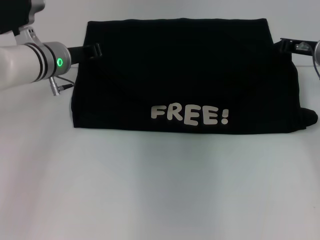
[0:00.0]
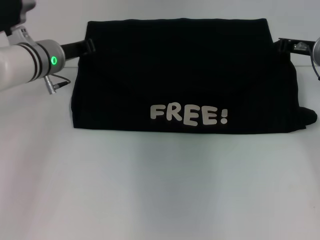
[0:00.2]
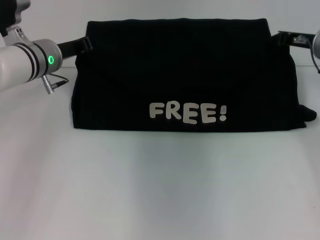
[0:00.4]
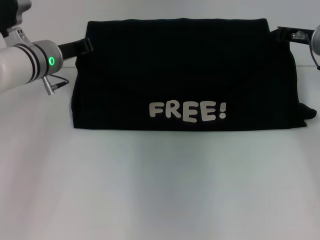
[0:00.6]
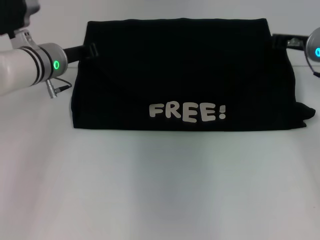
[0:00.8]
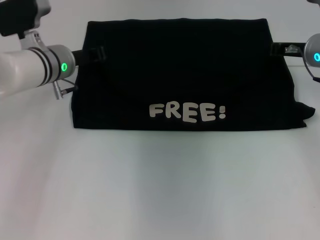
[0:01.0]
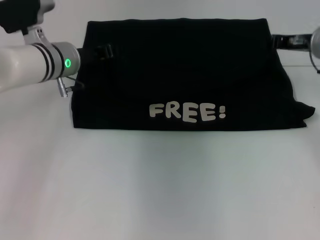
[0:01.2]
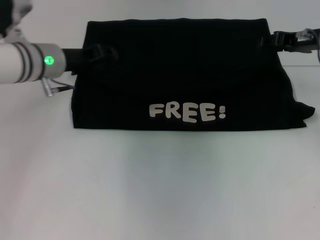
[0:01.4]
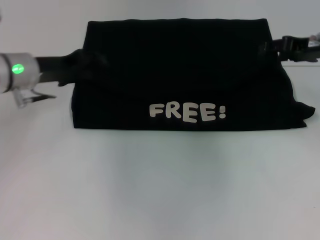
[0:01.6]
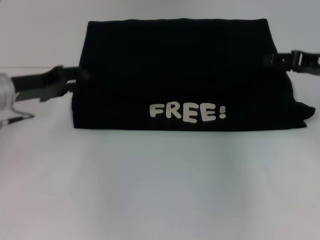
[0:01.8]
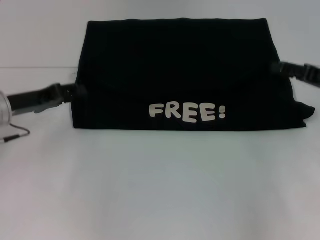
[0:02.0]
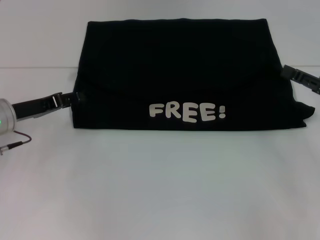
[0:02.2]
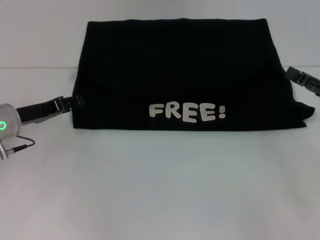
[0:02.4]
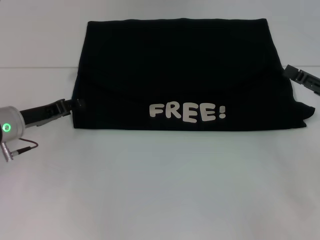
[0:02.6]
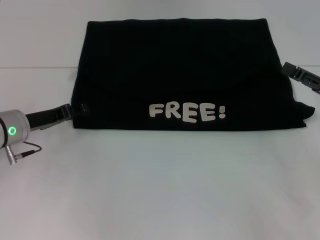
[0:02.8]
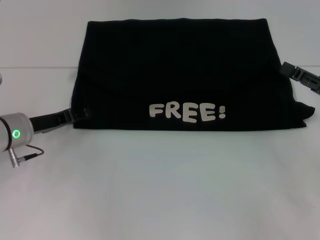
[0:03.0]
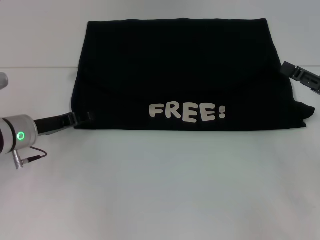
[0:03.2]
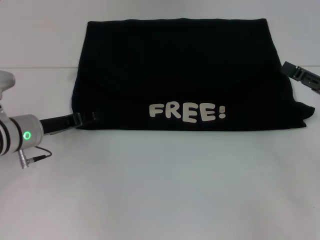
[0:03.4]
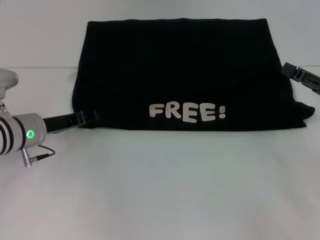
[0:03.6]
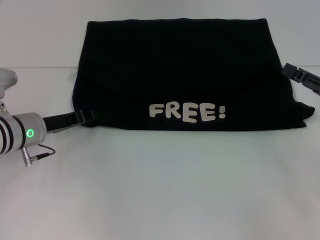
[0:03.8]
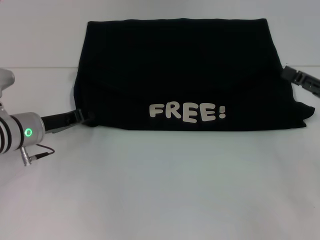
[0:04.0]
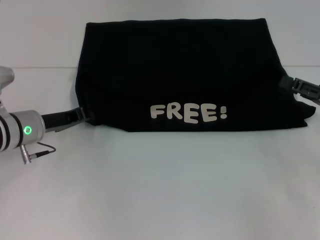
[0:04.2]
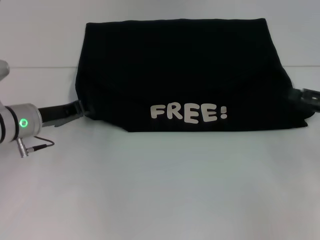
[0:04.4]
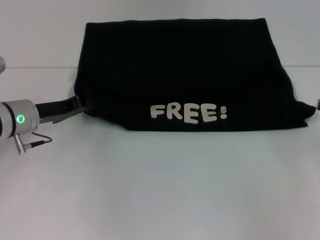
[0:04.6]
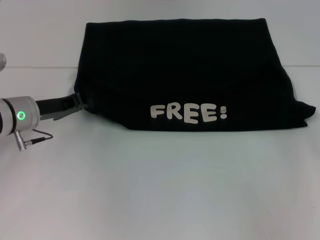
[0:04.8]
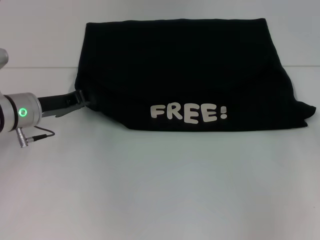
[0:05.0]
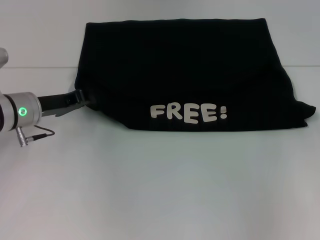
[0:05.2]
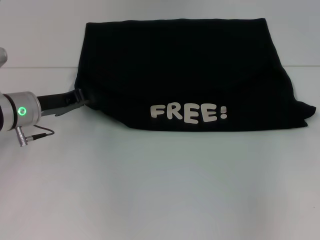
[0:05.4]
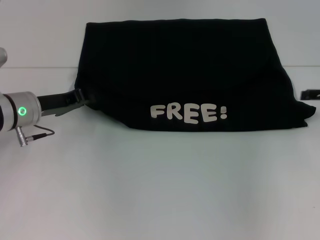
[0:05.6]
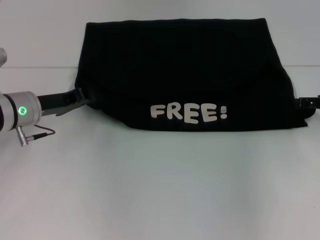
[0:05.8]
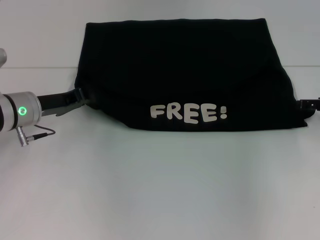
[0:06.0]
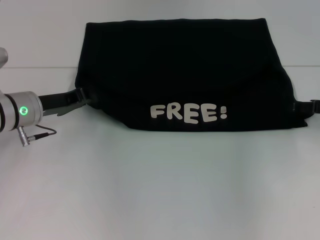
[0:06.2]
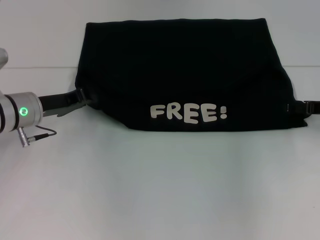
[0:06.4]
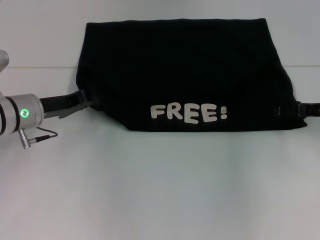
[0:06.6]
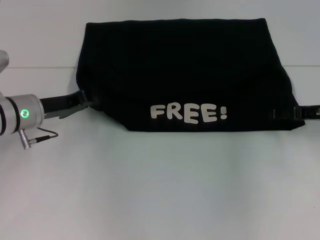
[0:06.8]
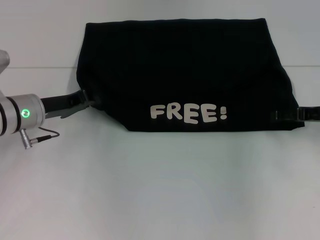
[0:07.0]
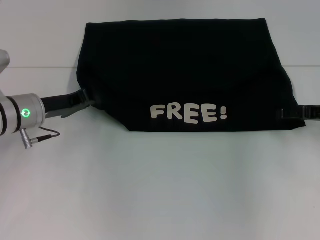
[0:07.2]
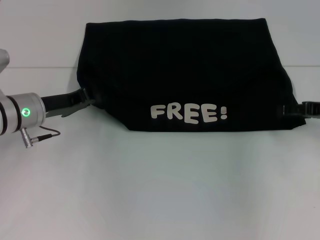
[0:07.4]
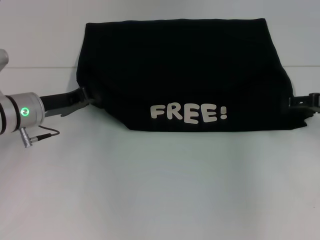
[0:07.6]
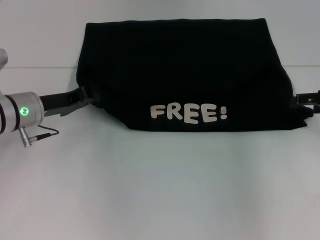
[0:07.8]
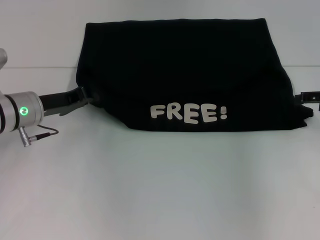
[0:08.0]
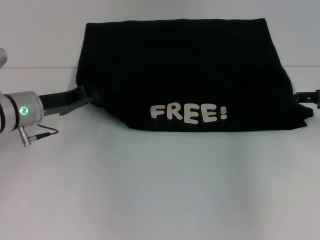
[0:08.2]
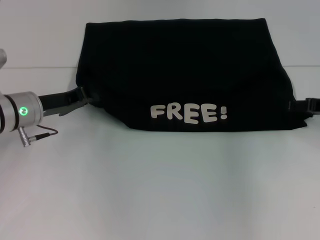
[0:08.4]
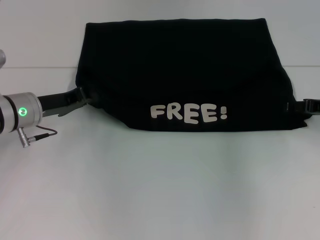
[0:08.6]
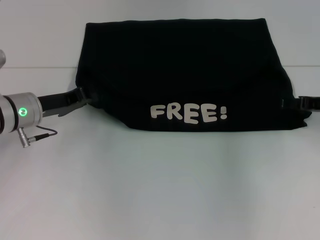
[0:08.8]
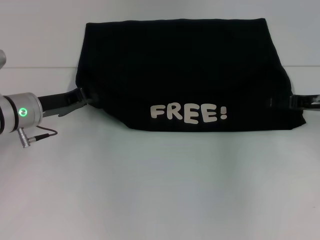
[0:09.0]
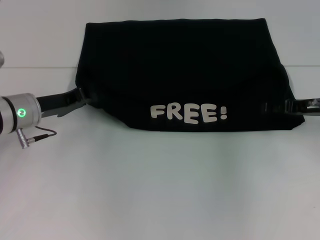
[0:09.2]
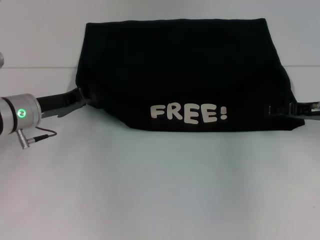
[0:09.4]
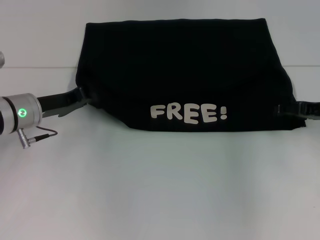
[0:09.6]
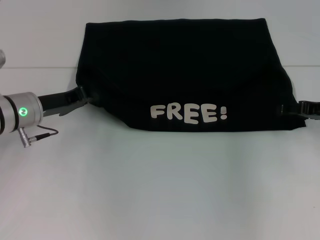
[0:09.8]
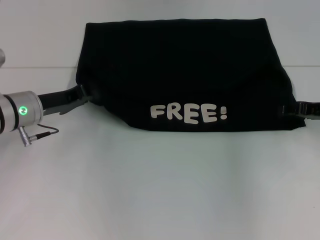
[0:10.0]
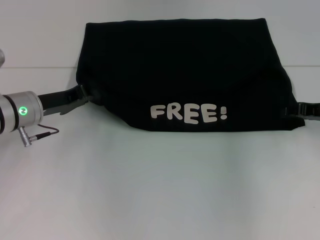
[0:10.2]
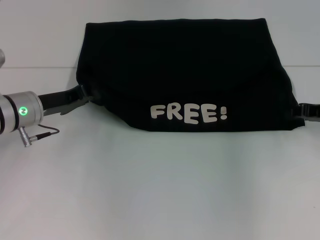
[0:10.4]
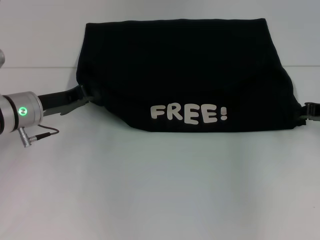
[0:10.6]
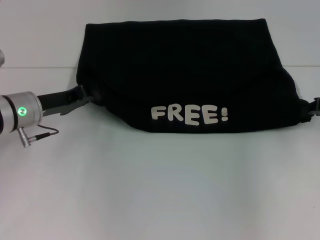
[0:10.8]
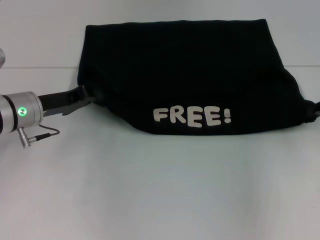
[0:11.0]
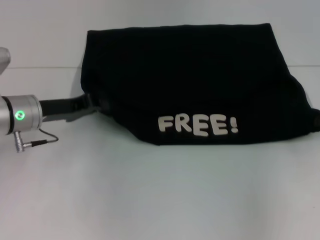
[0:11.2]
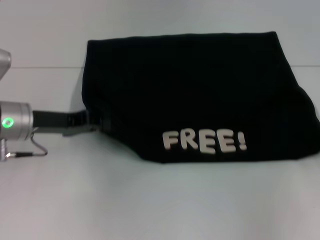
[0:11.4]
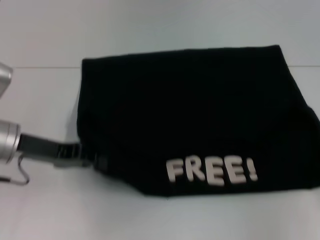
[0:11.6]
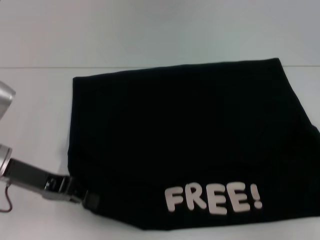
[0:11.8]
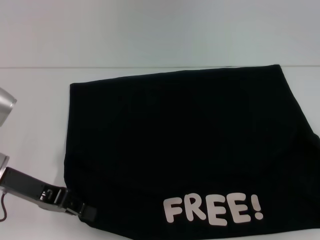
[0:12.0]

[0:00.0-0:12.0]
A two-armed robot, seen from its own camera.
Step, 1.4 to 12.0 s: Pull the clothes with your left hand.
Step, 1.4 to 12.0 s: Pull the clothes with your right hand.
0.0 to 1.6 s: The right gripper changes place by approximately 5 cm, and opens. Meanwhile the left gripper shifts some 5 cm to the left, and opens up.
1.6 to 3.0 s: The left gripper shifts roughly 10 cm downward. The right gripper travels backward and downward by approximately 15 cm.
3.0 to 4.4 s: The left gripper closes its fingers.
4.4 to 6.0 s: The right gripper shifts about 5 cm forward.
6.0 to 9.0 s: The grippers make only small movements.
9.0 to 10.4 s: The right gripper closes up.
10.4 to 12.0 s: The left gripper goes roughly 10 cm backward. The right gripper travels backward and to the right by approximately 15 cm, and closes its fingers.

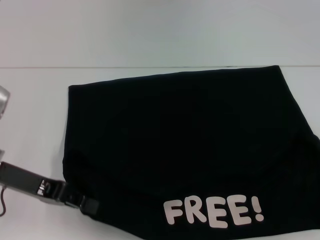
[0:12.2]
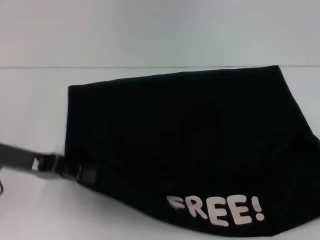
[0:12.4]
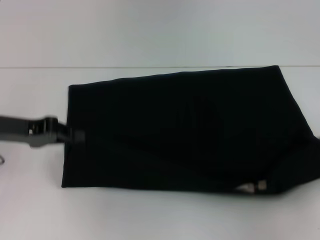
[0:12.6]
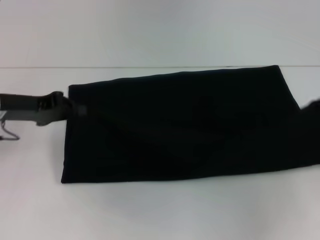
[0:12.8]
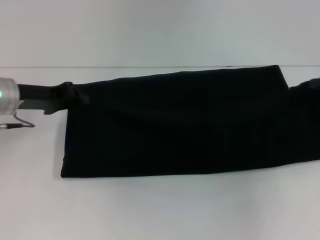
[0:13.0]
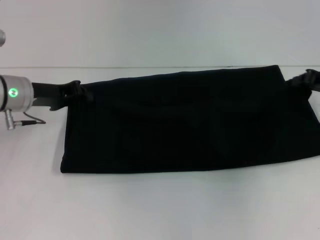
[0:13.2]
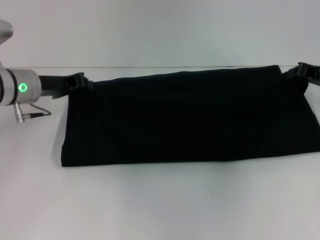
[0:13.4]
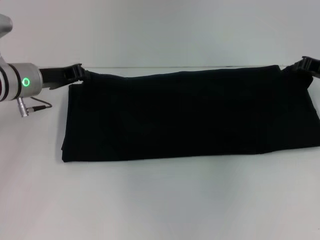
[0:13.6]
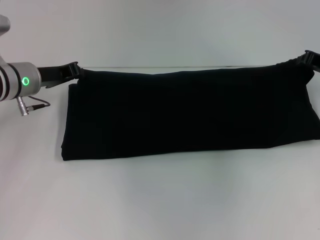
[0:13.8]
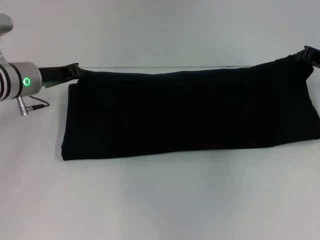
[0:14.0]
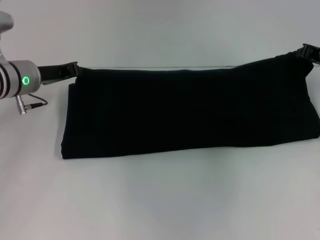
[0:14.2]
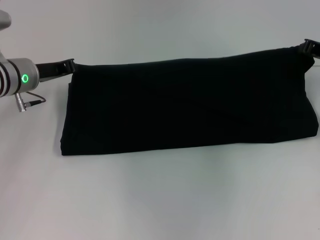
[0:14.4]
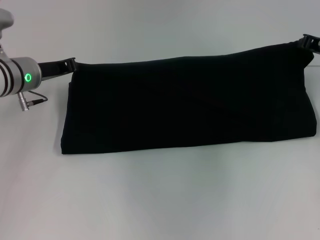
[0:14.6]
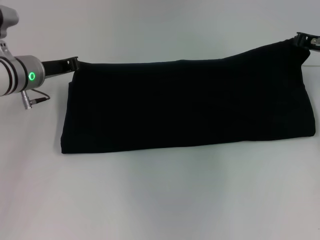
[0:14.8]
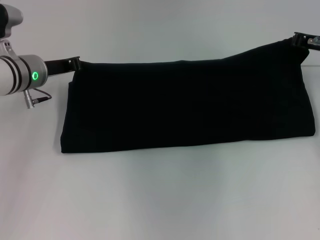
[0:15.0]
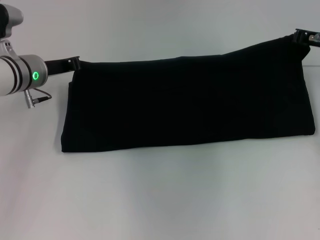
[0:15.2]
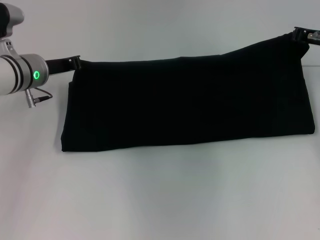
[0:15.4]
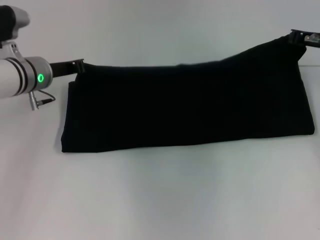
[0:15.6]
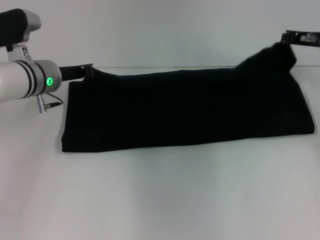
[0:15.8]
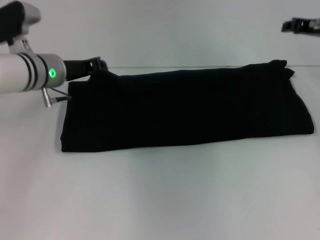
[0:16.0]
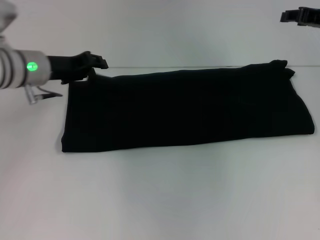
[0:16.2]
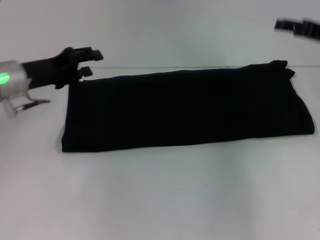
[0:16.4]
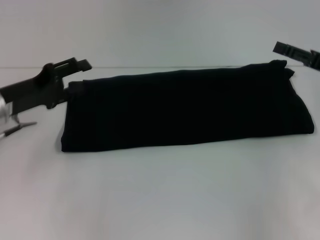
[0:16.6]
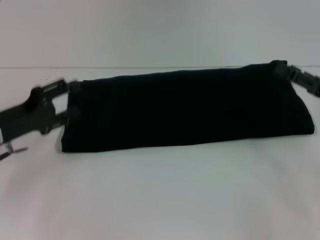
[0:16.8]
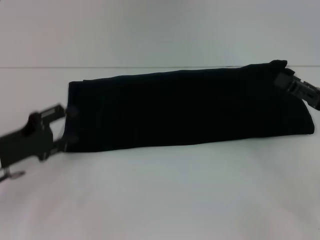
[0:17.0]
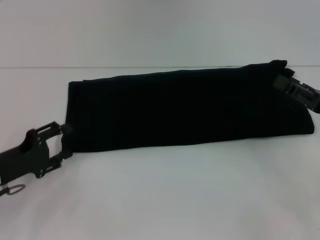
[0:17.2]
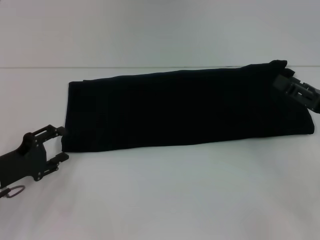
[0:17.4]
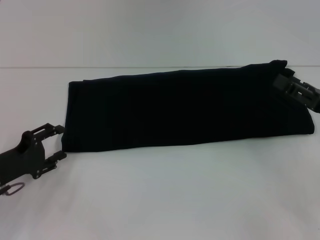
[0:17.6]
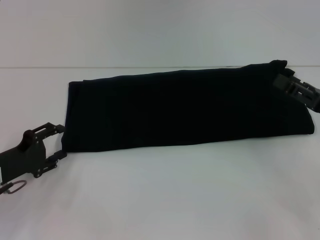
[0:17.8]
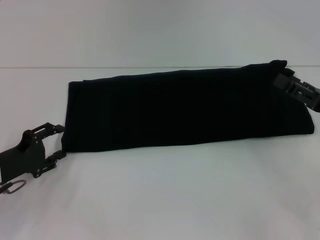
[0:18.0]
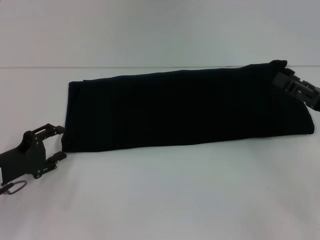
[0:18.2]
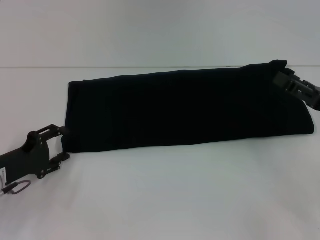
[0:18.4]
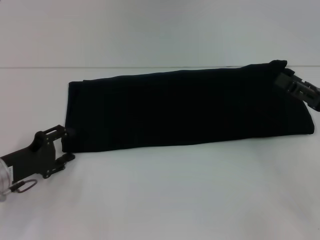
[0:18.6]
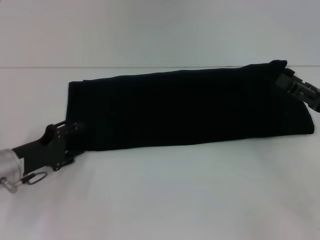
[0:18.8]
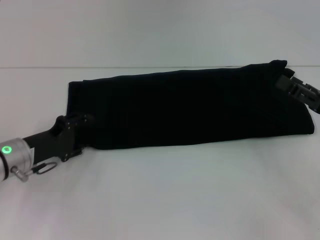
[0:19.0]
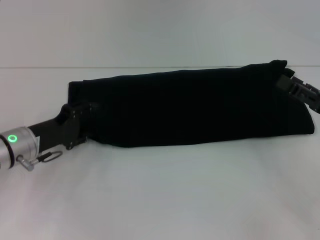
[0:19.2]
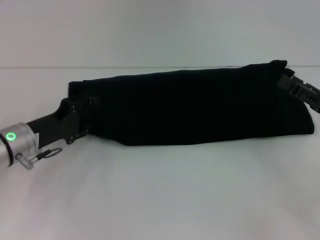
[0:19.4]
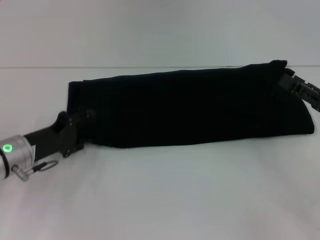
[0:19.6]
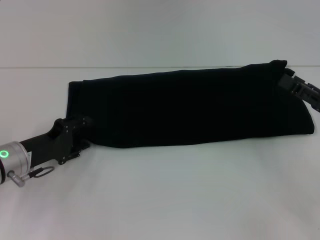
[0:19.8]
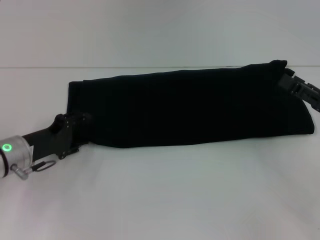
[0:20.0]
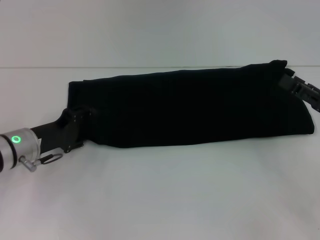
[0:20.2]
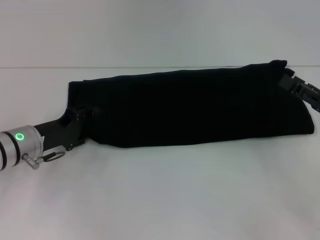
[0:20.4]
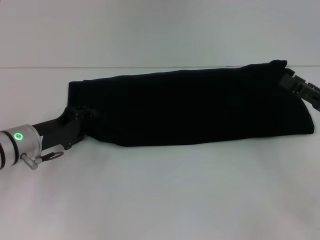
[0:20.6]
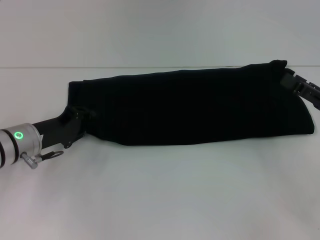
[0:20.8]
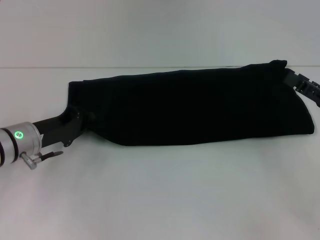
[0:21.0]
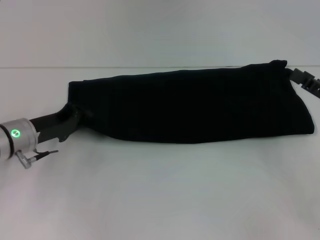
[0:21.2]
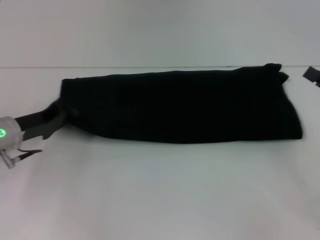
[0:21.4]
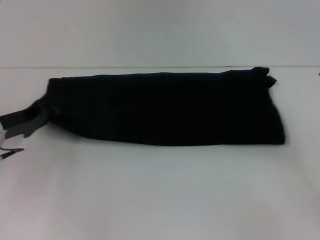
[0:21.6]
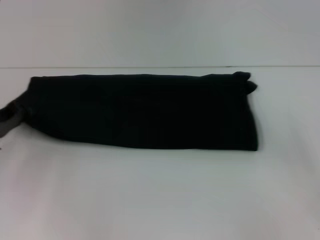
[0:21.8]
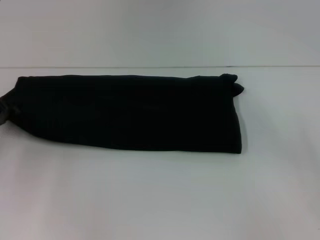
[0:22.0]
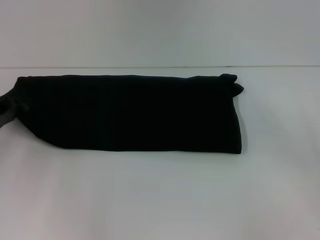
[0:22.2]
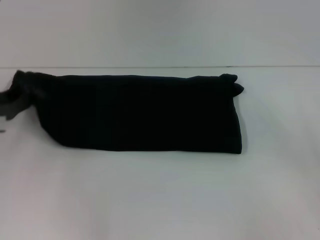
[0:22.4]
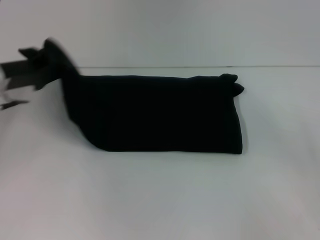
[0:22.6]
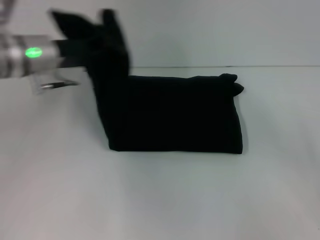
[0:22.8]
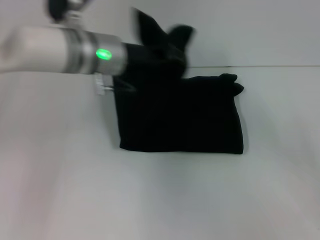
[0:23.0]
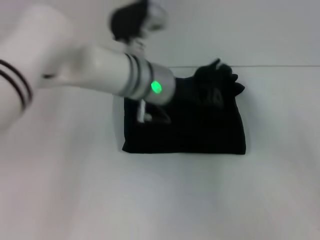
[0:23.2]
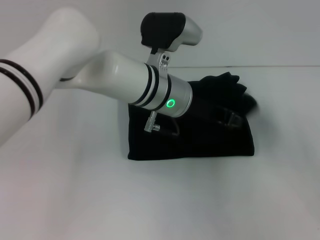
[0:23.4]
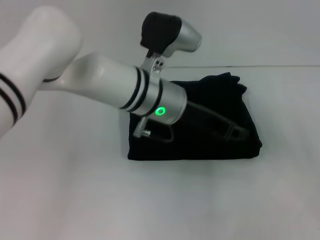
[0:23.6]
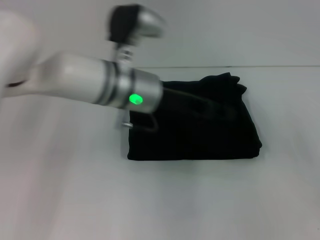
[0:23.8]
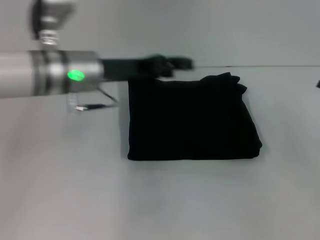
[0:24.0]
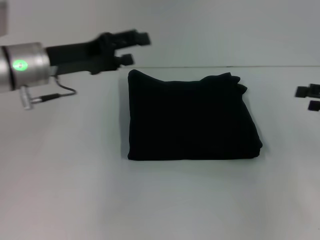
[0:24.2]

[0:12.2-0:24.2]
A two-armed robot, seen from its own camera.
Step, 12.2 to 16.2 s: Fold the clothes with your right hand.
Step, 12.2 to 23.8 s: Fold the clothes with your left hand.
12.2 to 13.8 s: The left gripper is displaced forward by some 15 cm; the right gripper goes some 20 cm forward and to the left.
13.8 to 15.2 s: There are only small adjustments of the grippers.
15.2 to 16.6 s: The left gripper heads backward and to the left, covering some 10 cm, and opens; the right gripper heads backward, covering roughly 10 cm, and opens.
16.6 to 18.2 s: The right gripper is displaced backward by some 5 cm, while the left gripper travels downward and backward by roughly 10 cm.
18.2 to 19.8 s: The left gripper moves some 5 cm.
19.8 to 21.2 s: The left gripper closes its fingers.
21.2 to 22.6 s: The right gripper travels to the right by about 5 cm; the left gripper travels upward by roughly 10 cm.
22.6 to 24.2 s: The left gripper travels to the right and back again, about 25 cm each way, and opens up; the right gripper is displaced forward by approximately 10 cm.
